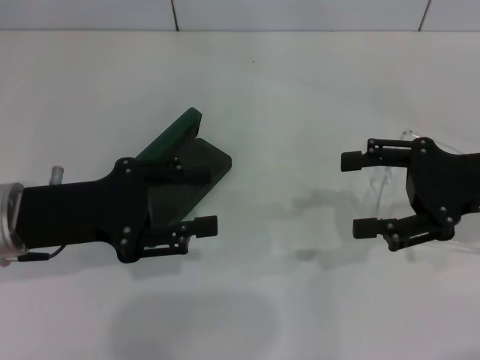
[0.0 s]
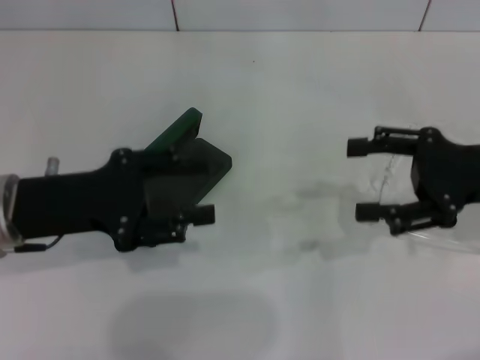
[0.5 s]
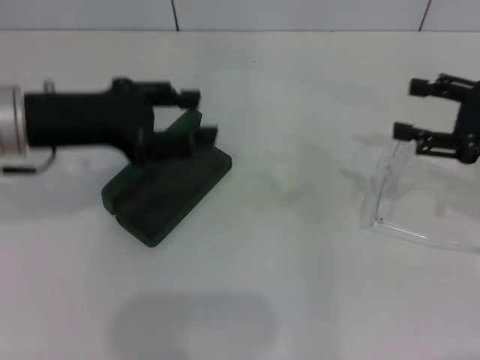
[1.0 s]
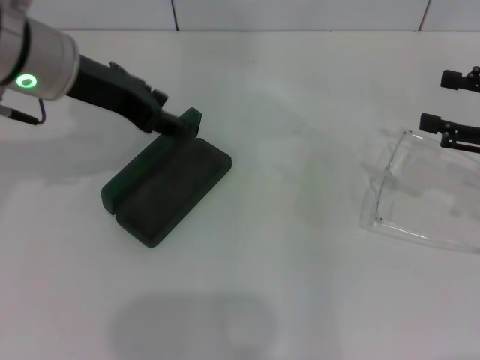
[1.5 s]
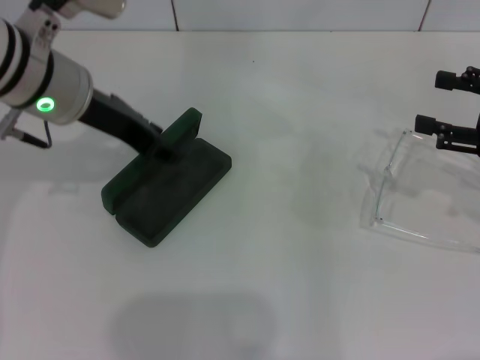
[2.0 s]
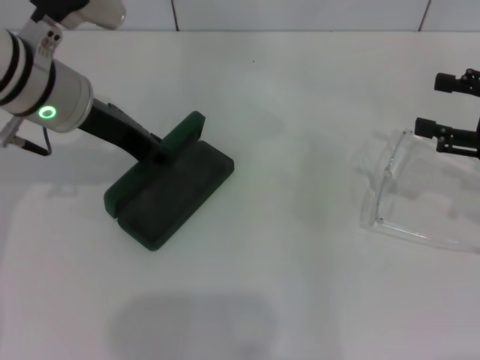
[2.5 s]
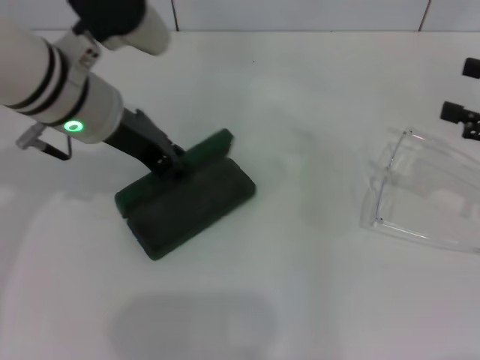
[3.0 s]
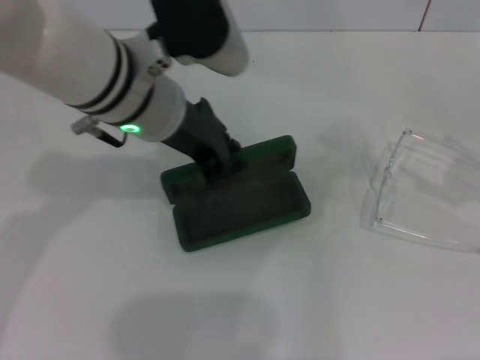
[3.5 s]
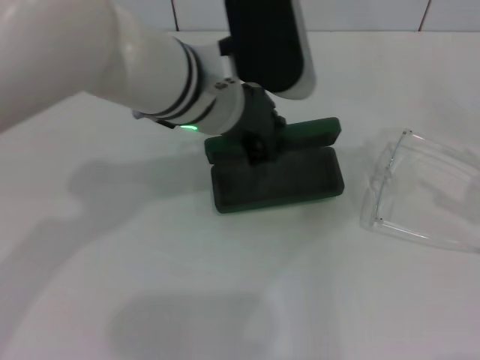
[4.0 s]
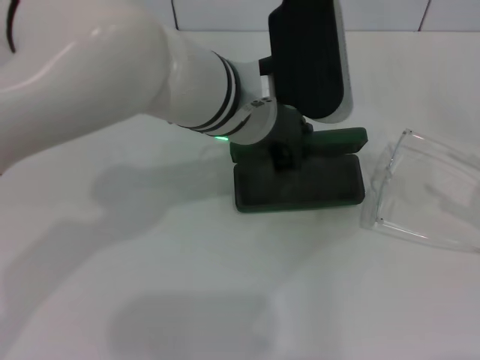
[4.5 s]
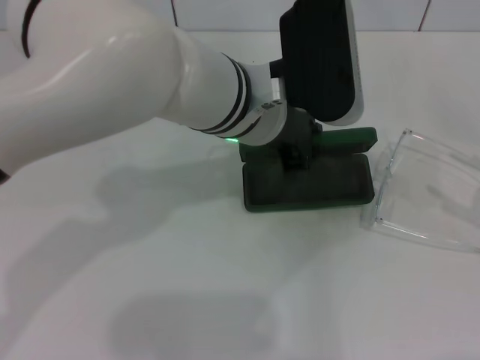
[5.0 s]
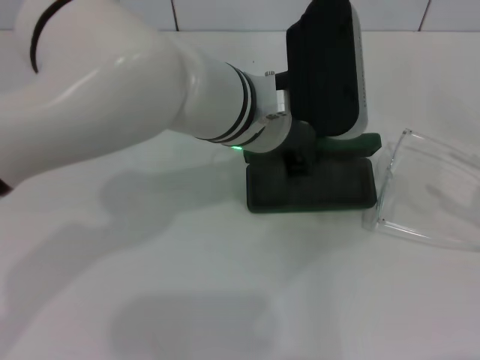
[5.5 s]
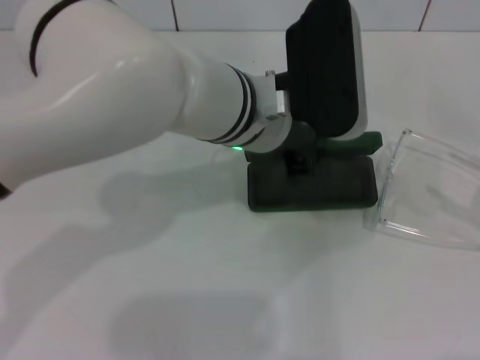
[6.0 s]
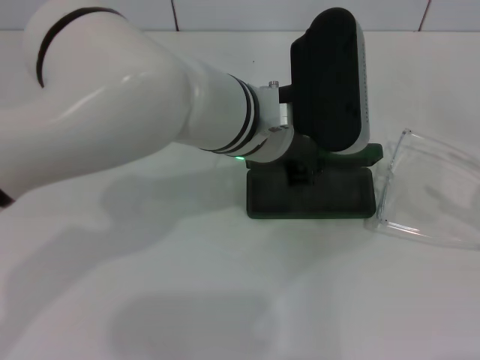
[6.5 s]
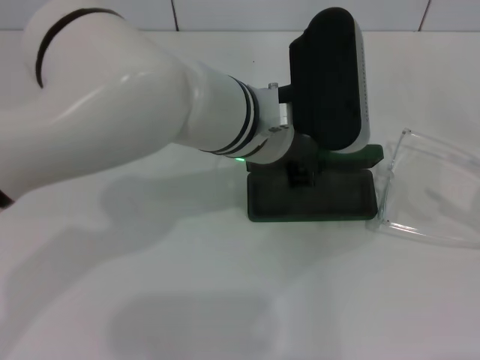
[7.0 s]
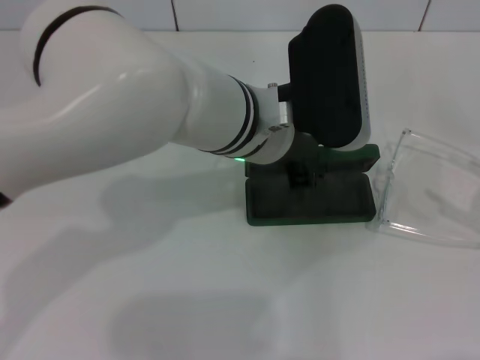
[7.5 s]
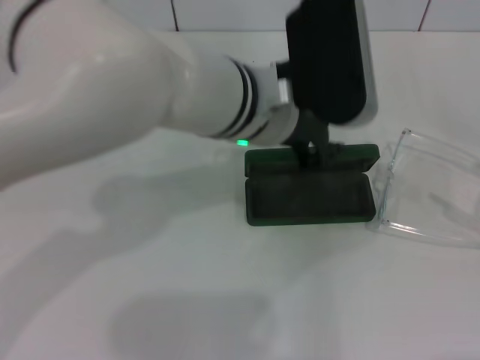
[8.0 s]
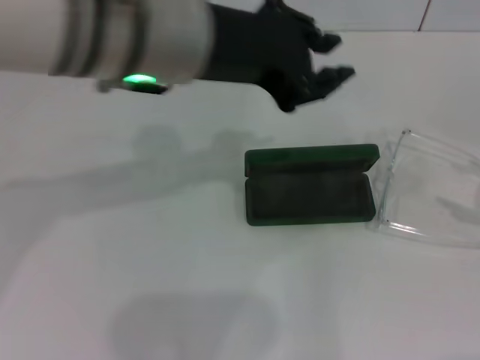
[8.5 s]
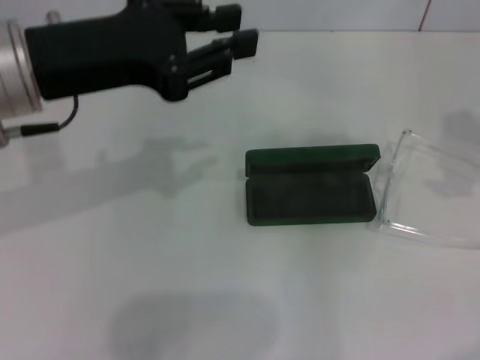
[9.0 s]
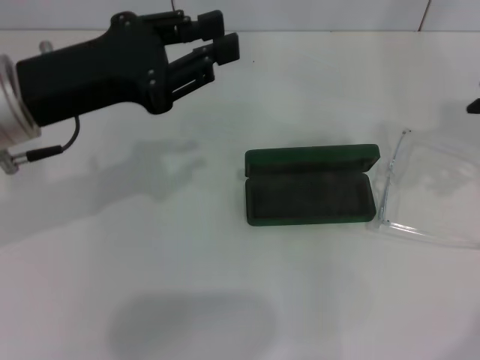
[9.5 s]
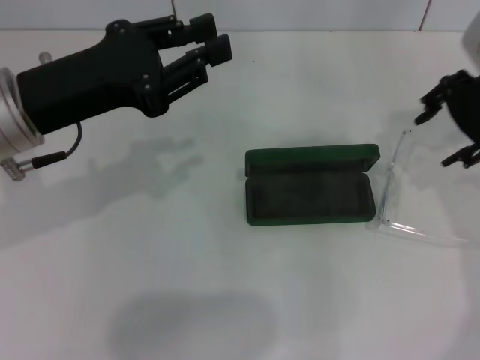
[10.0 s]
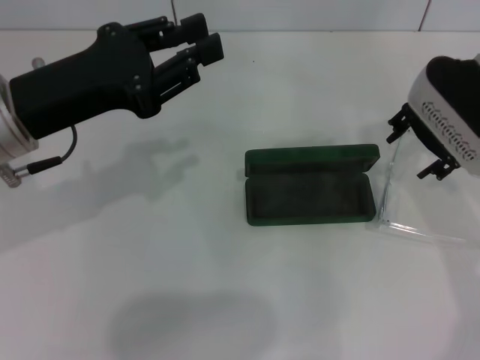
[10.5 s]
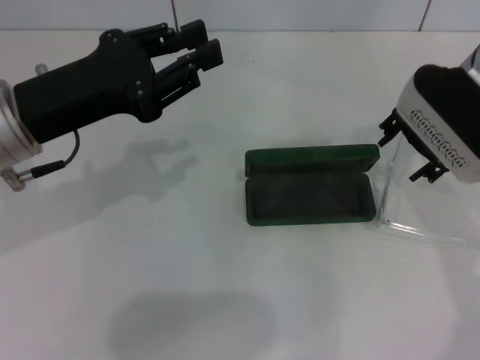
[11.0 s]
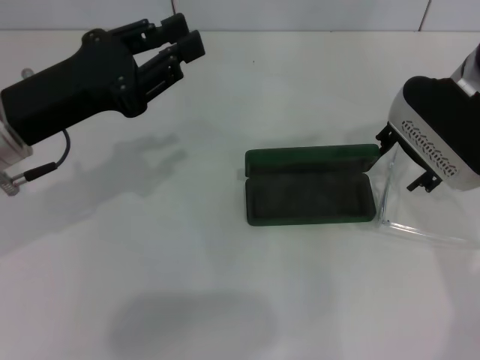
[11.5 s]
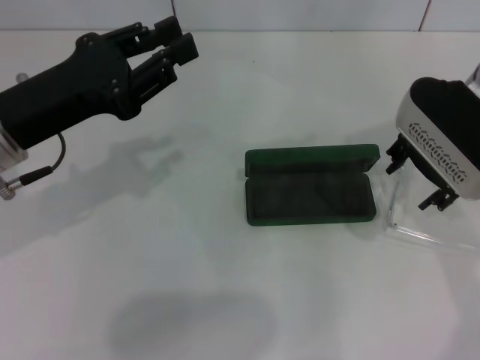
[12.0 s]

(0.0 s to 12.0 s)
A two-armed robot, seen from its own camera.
Step, 0.0 s - 2.5 s: Grab the glasses case with your left hand.
Step, 3.0 s - 7.5 s: Place the glasses case in the center of the table with your left hand.
0.0 s - 2.0 s: The left gripper goes roughly 15 cm forward, upward and to the right. The right gripper moves to the right, about 5 cm.
2.0 s - 4.0 s: The right gripper is displaced backward and to the right by some 10 cm, while the left gripper shifts some 15 cm to the right, and closes.
6.0 s - 8.0 s: The grippers make only small movements.
8.0 s - 10.0 s: The left gripper shifts roughly 20 cm to the left. Meanwhile the right gripper goes some 25 cm to the left, forward and upward.
10.0 s - 12.0 s: The right gripper changes place by approximately 5 cm.

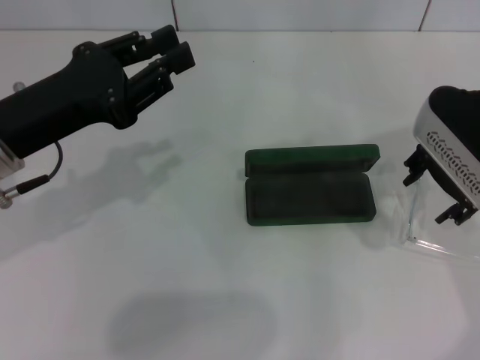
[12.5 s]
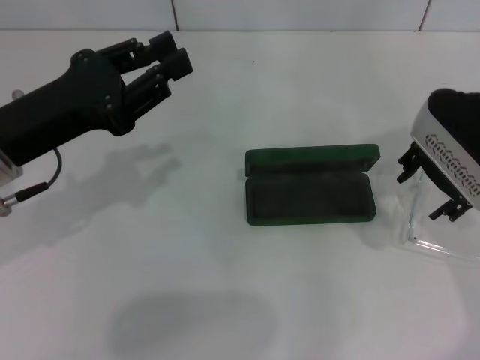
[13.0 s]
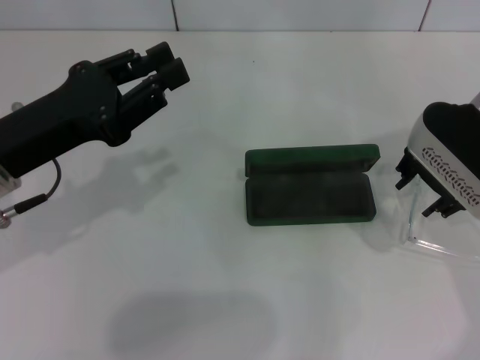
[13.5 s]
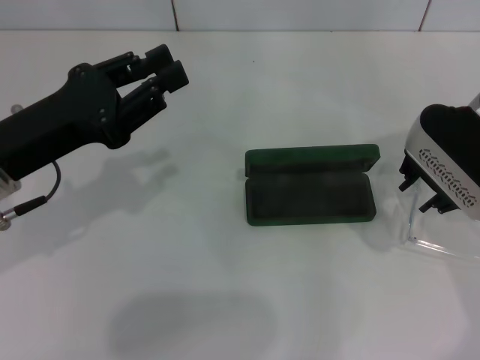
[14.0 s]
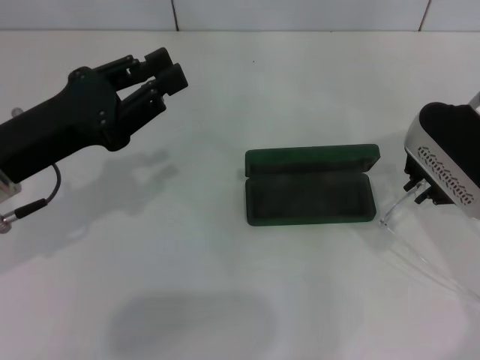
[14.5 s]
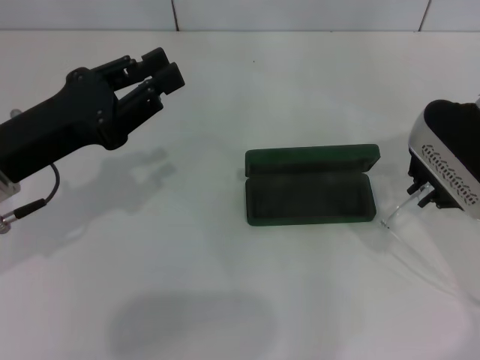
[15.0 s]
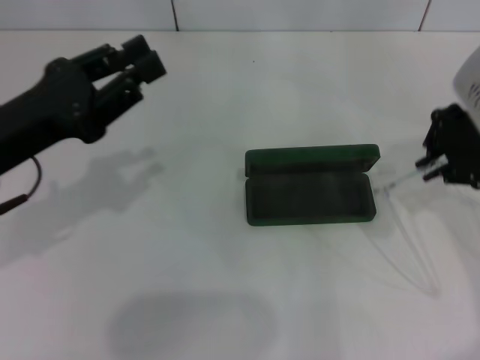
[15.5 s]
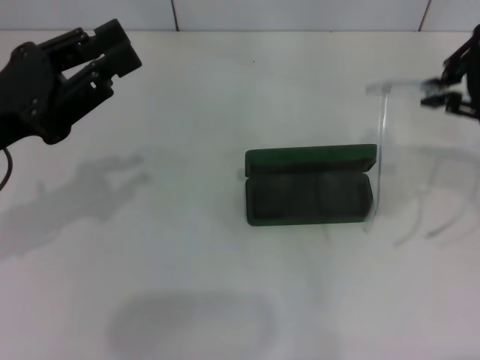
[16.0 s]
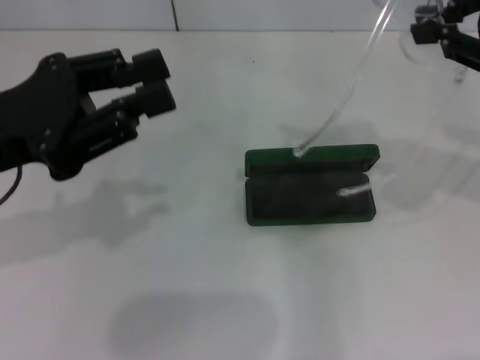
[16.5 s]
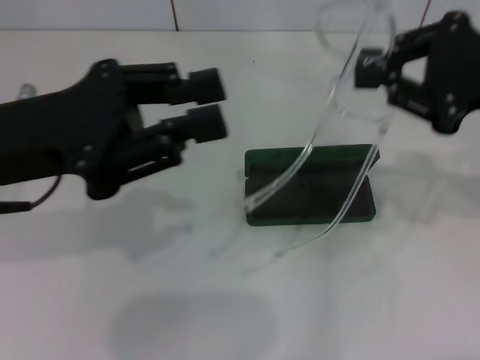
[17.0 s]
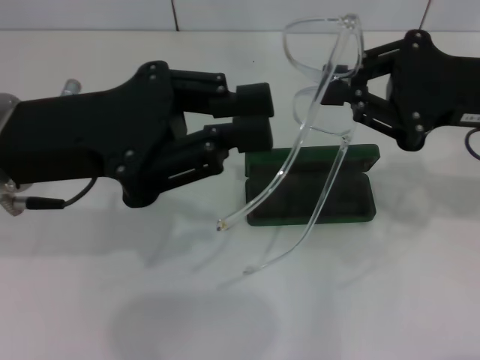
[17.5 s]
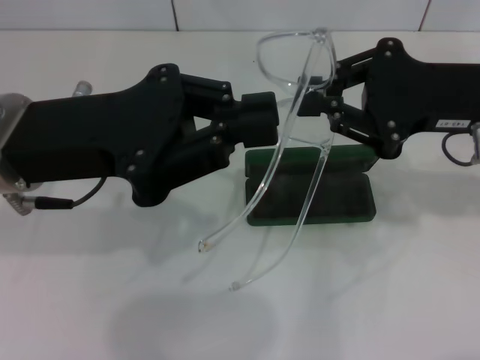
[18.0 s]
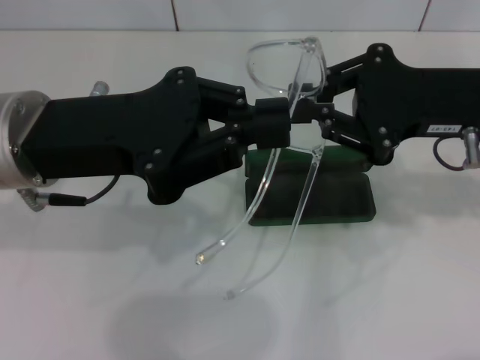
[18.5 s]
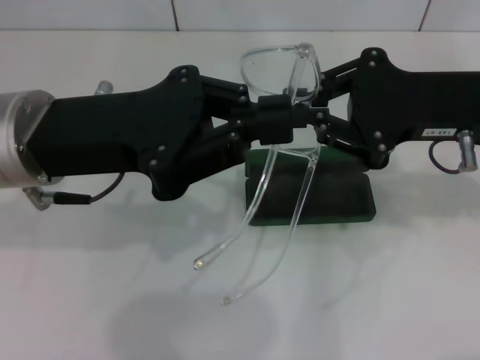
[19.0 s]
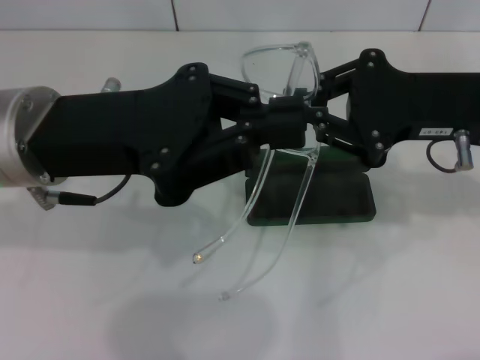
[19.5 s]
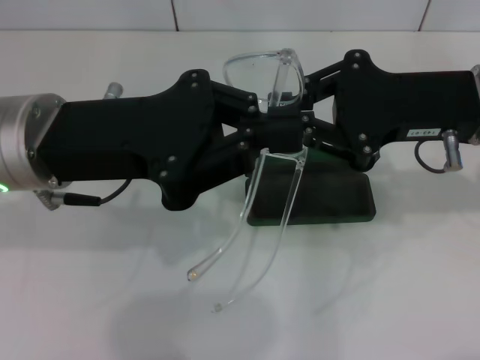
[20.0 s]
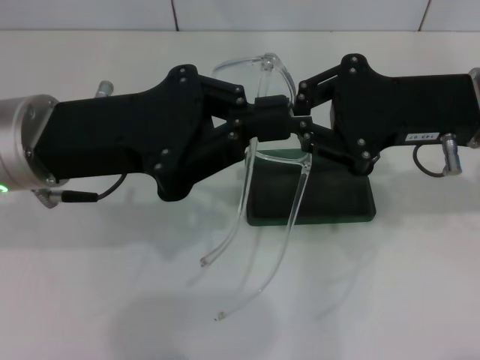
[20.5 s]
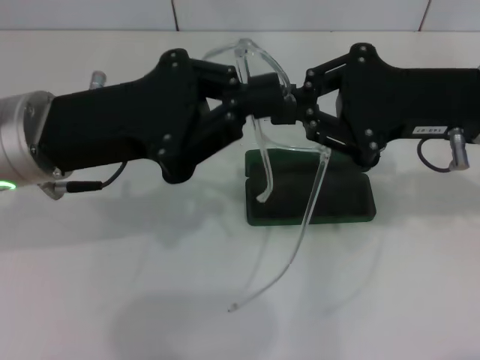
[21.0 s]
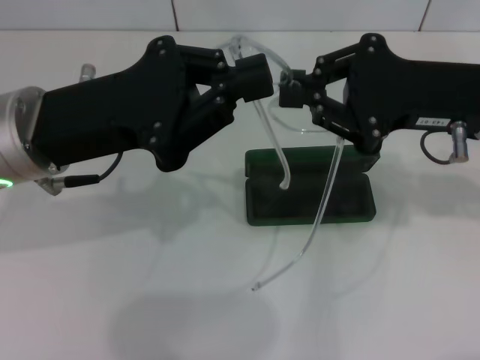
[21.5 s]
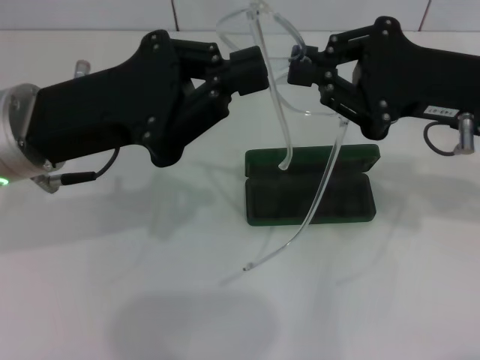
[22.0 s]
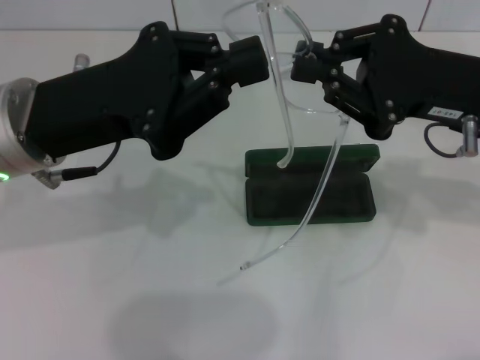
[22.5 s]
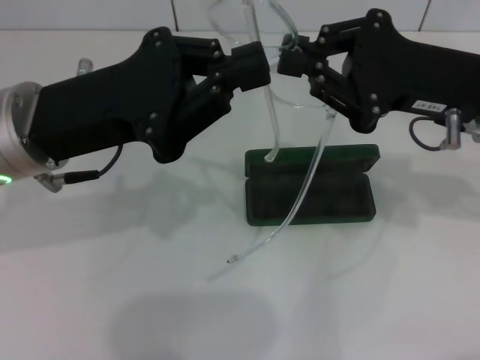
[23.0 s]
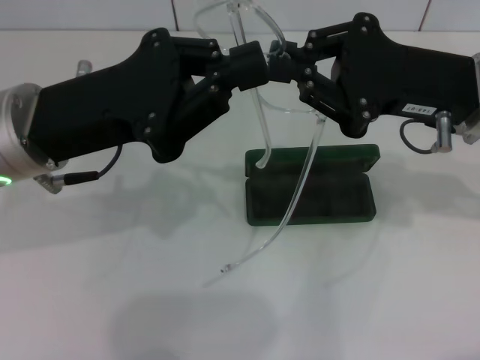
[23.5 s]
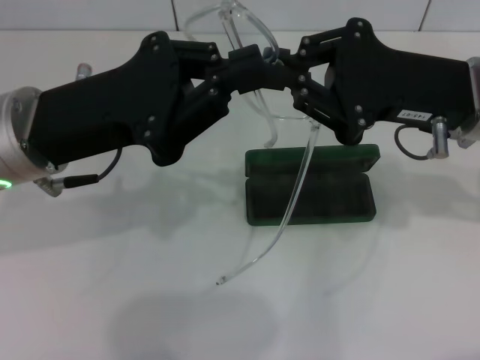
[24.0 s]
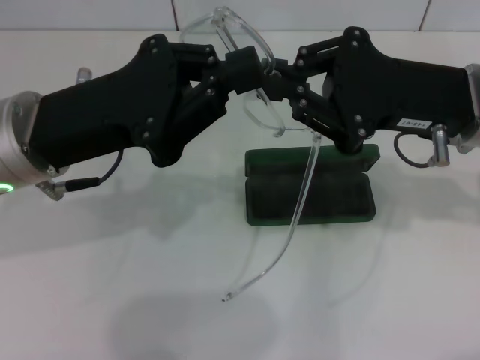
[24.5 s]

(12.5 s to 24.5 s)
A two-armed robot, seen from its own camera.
Step, 12.5 s - 14.5 s: Grab the eyeglass frame with your right hand.
12.5 s - 14.5 s: The right gripper closes up.
14.5 s - 16.5 s: The right gripper travels upward, to the right and backward by some 15 cm. The left gripper ends up about 5 cm from where it was.
16.5 s - 18.5 s: The left gripper is displaced to the right by approximately 5 cm, and closes up, while the right gripper goes roughly 10 cm downward and to the left.
18.5 s - 20.5 s: The grippers stay close to where they were, moving slightly.
22.5 s - 24.5 s: The grippers move only a little.

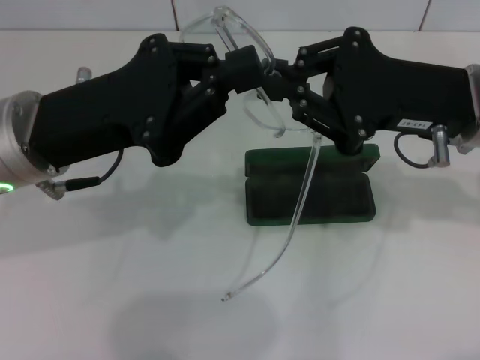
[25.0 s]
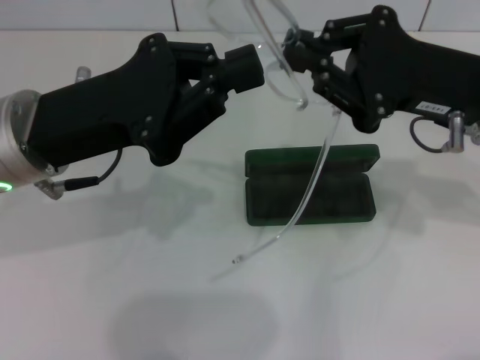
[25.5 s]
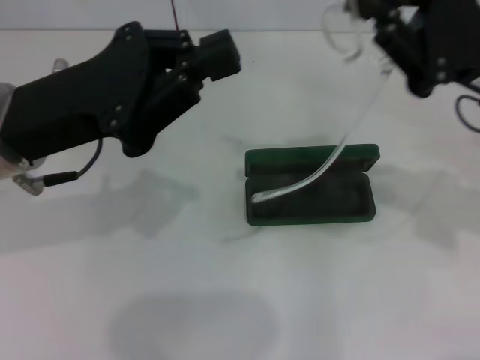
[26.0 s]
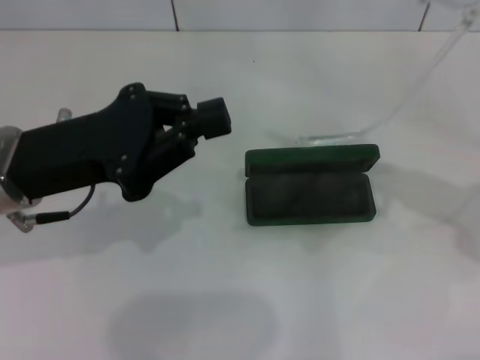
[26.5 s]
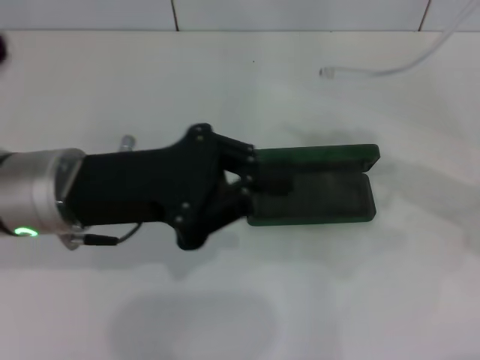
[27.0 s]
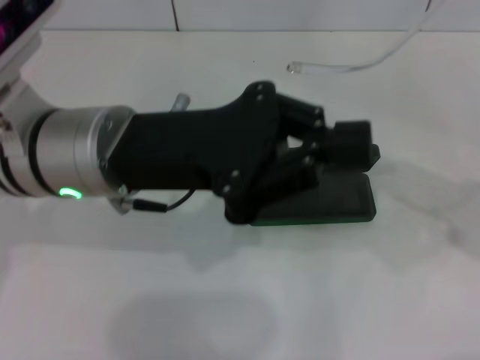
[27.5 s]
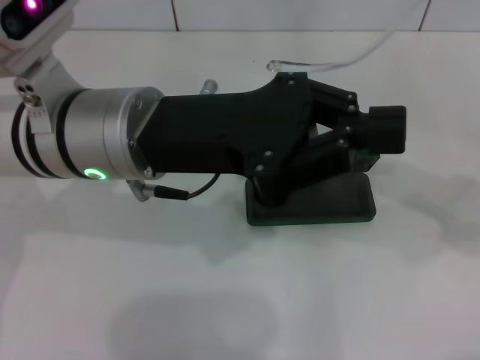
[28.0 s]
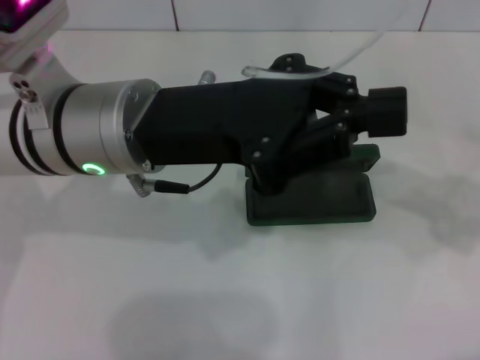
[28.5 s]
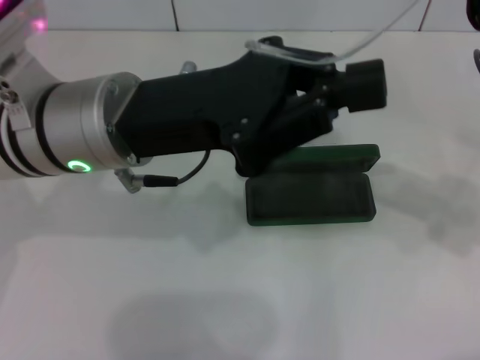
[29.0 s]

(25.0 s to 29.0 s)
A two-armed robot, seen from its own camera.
25.0 s - 27.0 s: The right gripper shifts roughly 5 cm to the right.
27.0 s - 29.0 s: The left gripper ends up some 5 cm from where it was.
